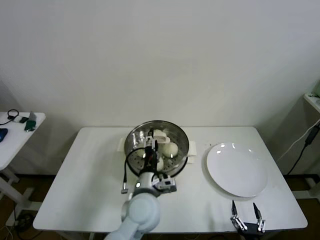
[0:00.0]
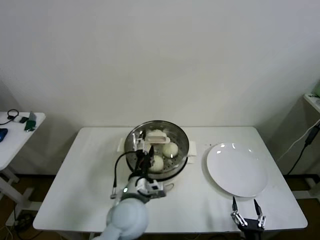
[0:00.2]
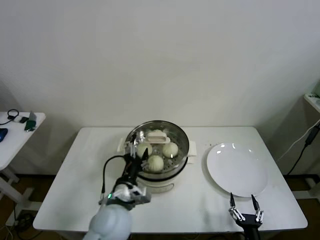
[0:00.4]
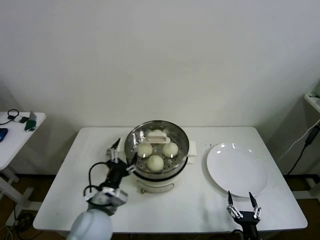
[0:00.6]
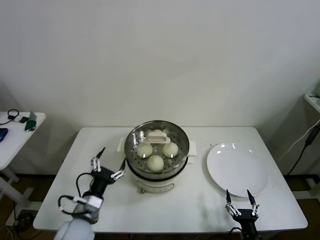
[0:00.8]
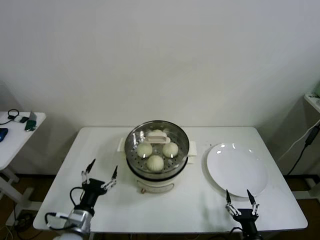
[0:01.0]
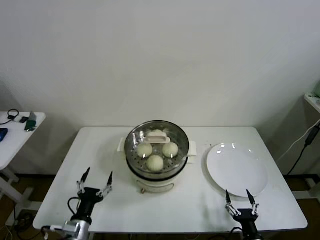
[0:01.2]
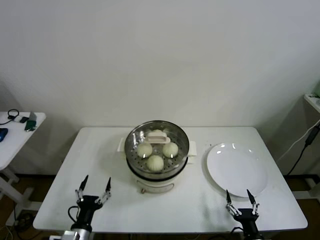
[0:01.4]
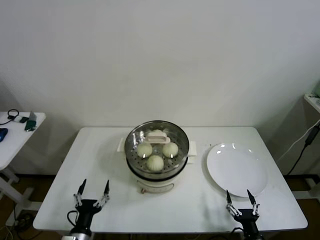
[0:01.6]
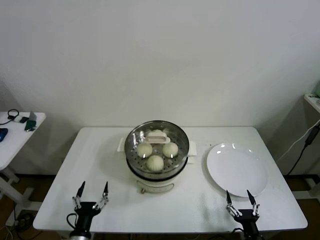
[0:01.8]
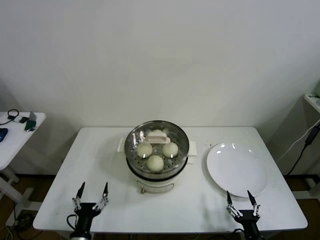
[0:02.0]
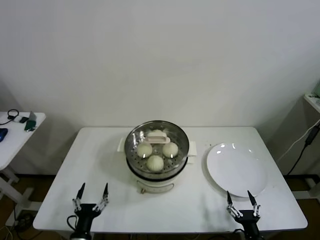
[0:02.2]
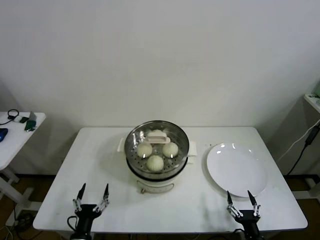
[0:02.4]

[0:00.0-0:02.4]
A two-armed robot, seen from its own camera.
0:00.0 to 0:01.2: The left gripper shifts approximately 30 cm to the left, downward and backward, while the right gripper moves approximately 5 cm.
0:01.2 to 0:02.4: The left gripper goes some 5 cm downward.
